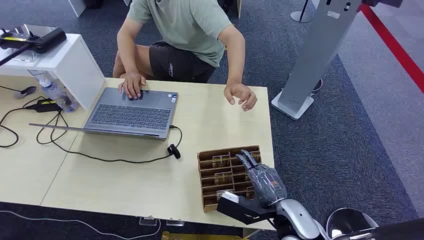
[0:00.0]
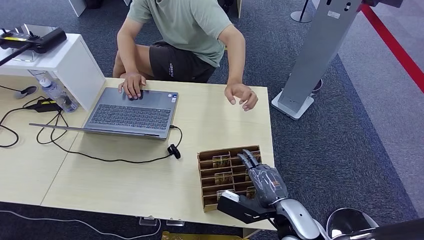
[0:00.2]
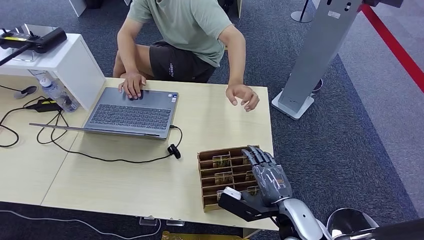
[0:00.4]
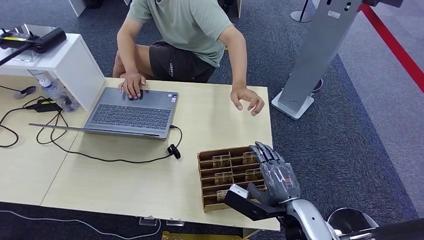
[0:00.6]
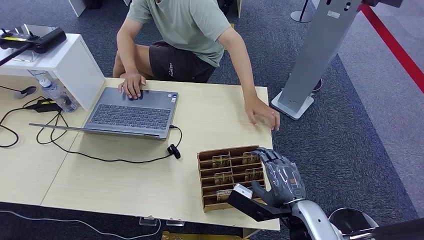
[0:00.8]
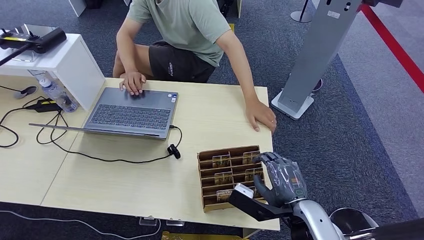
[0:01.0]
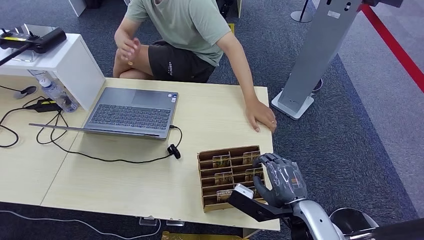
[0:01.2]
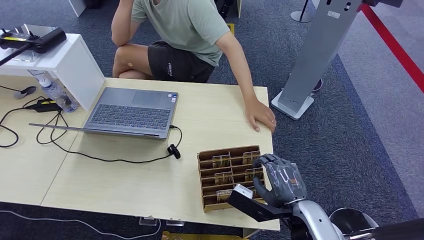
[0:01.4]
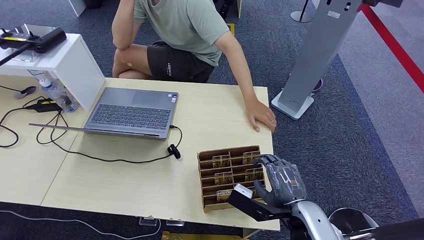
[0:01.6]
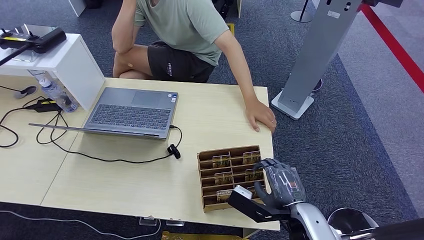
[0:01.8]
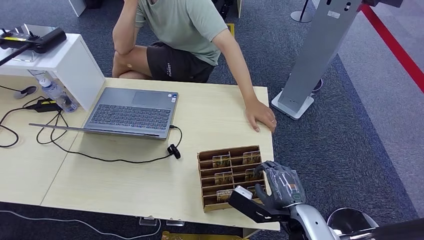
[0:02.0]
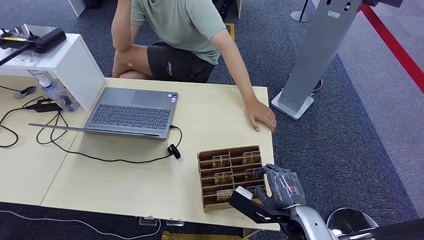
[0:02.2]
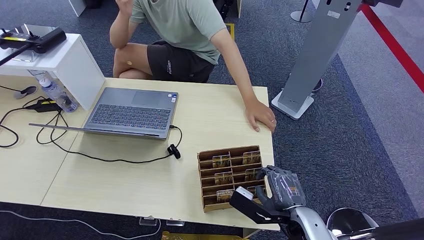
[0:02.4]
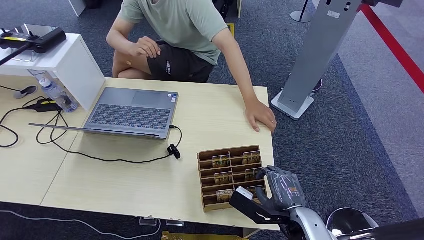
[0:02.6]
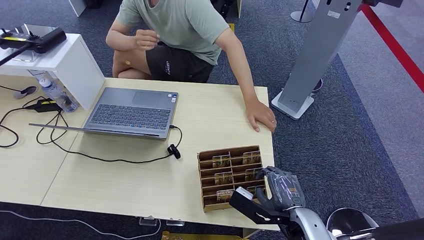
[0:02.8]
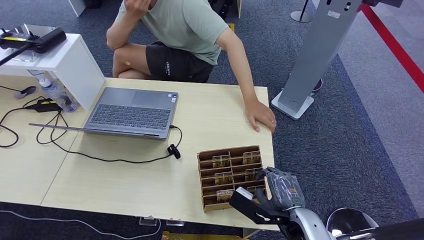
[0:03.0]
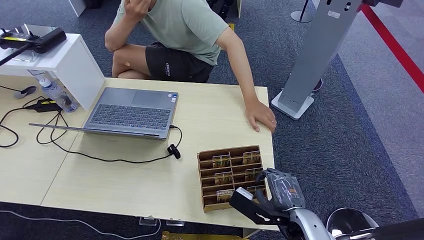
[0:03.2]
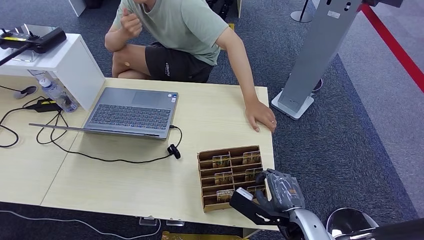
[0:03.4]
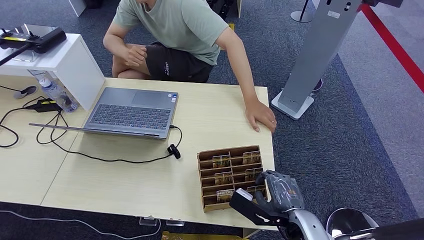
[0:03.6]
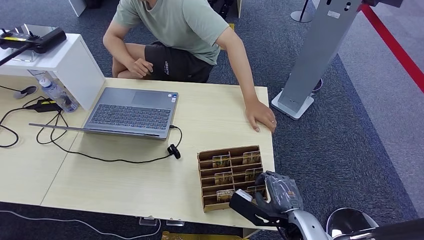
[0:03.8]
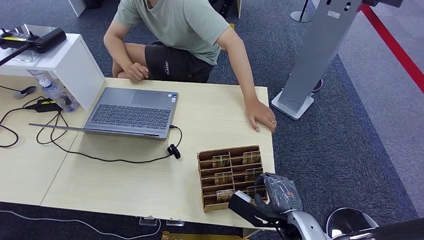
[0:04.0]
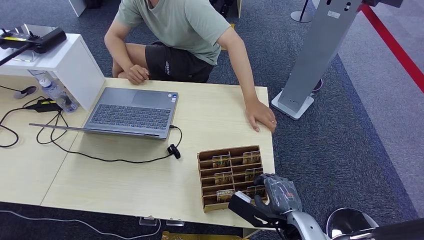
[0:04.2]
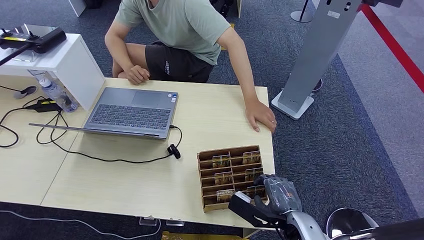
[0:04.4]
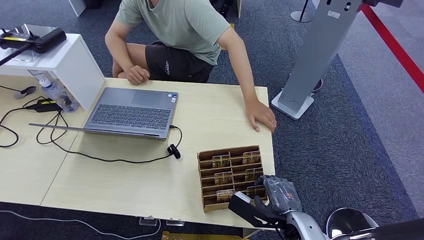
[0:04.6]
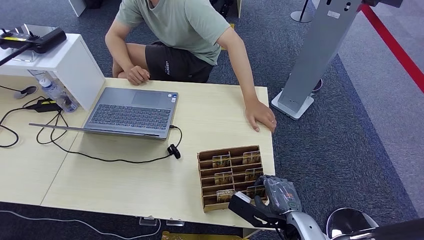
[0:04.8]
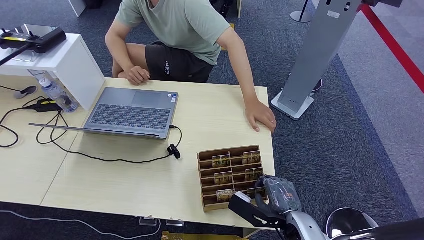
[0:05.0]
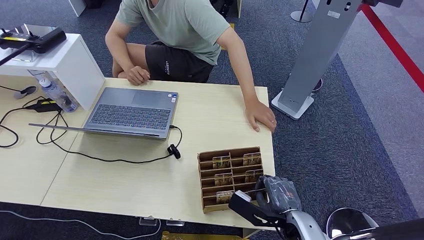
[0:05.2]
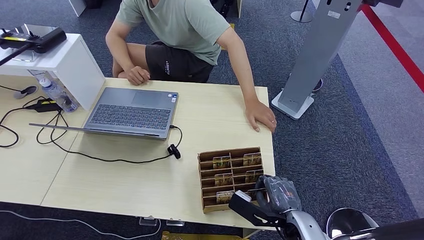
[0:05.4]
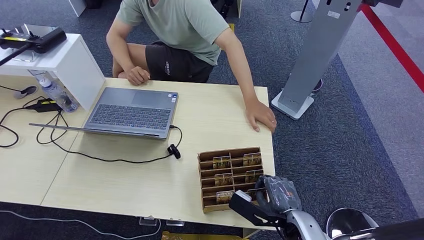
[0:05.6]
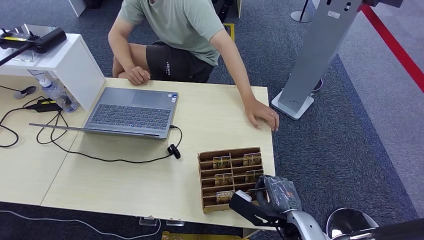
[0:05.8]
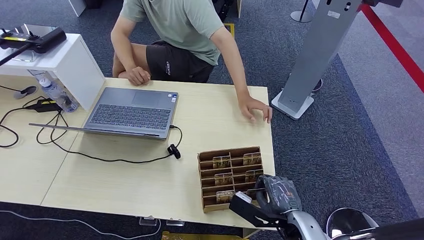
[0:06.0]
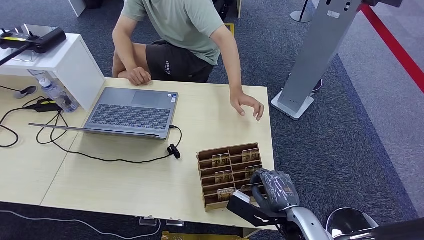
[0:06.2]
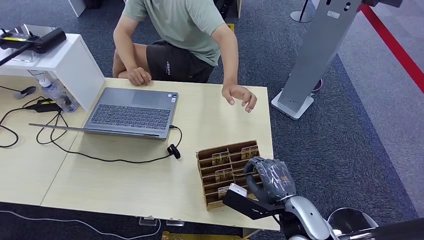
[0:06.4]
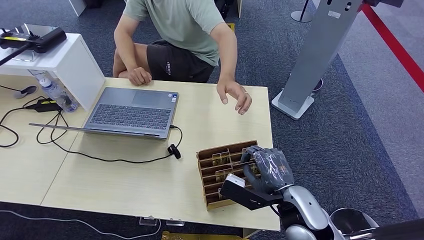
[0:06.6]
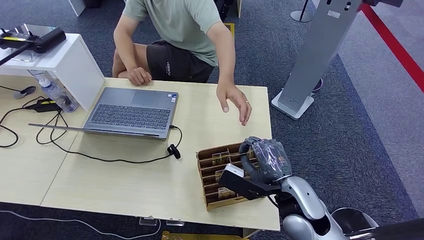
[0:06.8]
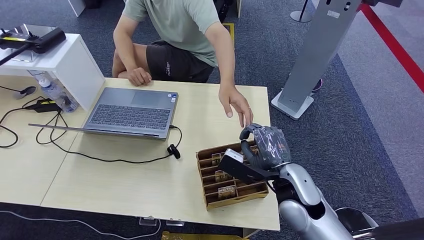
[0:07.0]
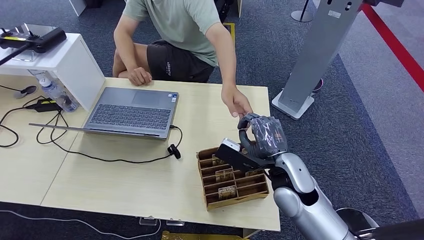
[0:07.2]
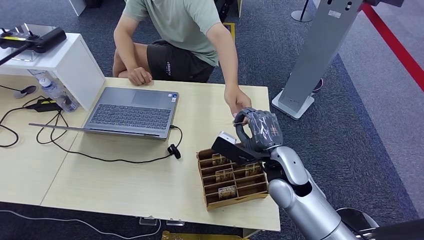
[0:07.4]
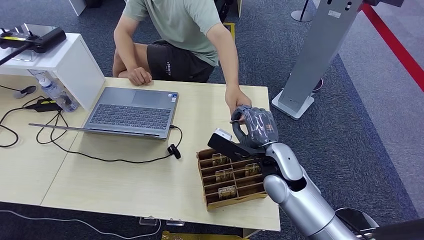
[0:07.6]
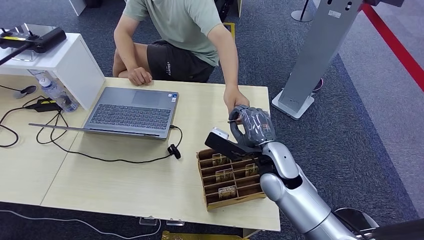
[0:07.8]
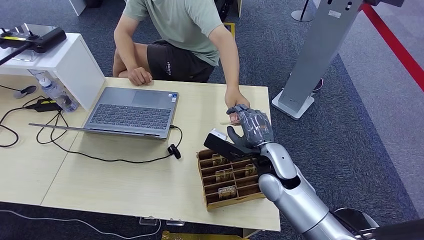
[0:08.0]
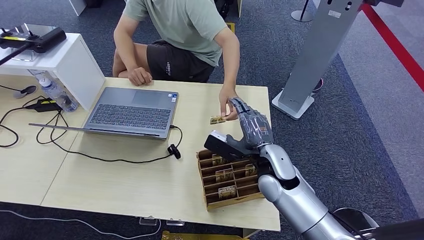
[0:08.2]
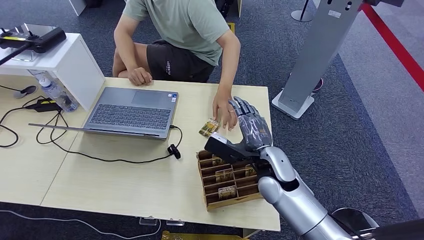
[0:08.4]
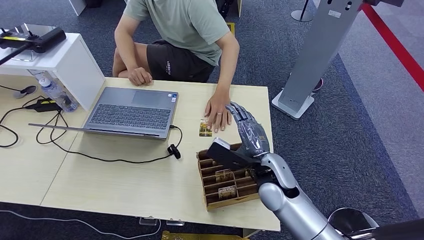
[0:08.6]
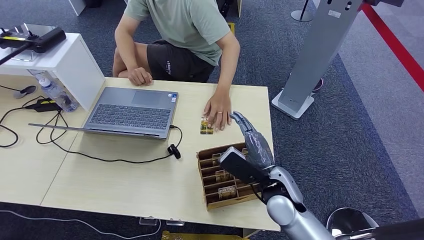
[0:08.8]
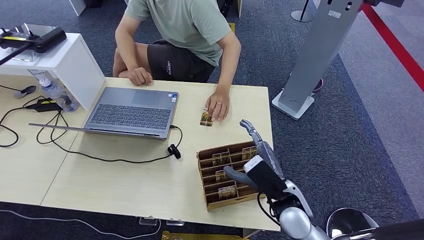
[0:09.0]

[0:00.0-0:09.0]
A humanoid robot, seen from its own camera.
Step, 0:00.0 to 0:06.8: Pick up the key card from the card box.
Step, 0:07.0 to 0:09.0: Hand the key card to the target.
0:01.6 to 0:04.4: The hands move only a little.
0:04.4 to 0:06.0: The two hands keep their place.
0:06.0 to 0:07.6: The right hand travels forward, upward and to the left by some 15 cm.
0:07.6 to 0:09.0: The right hand travels backward and downward by approximately 10 cm.
